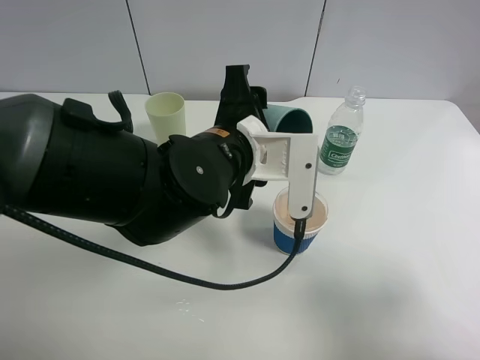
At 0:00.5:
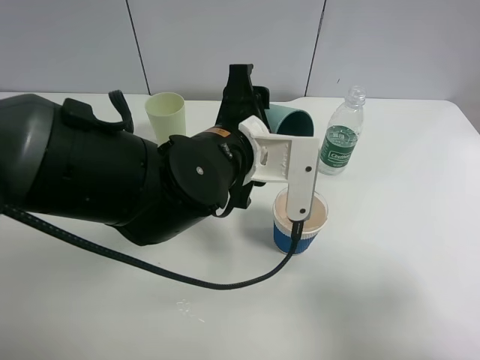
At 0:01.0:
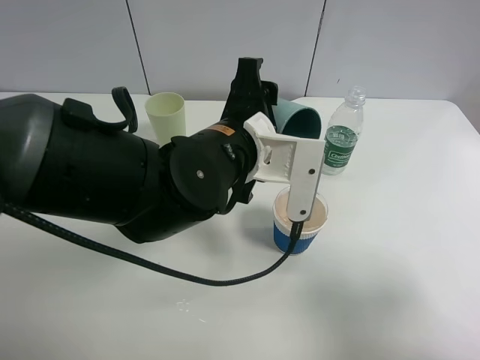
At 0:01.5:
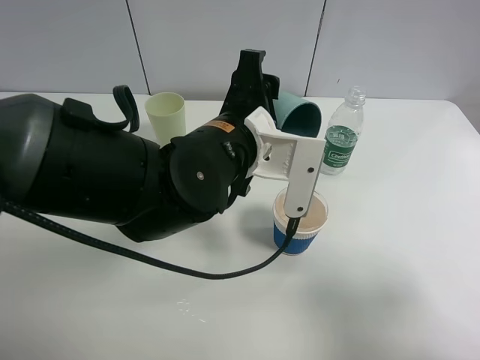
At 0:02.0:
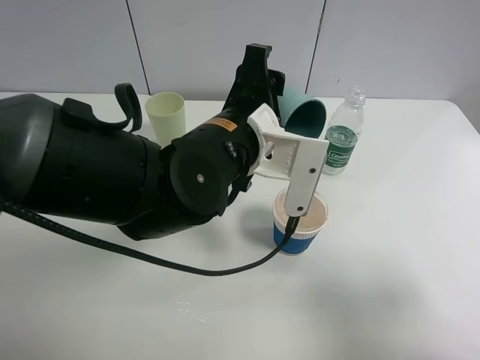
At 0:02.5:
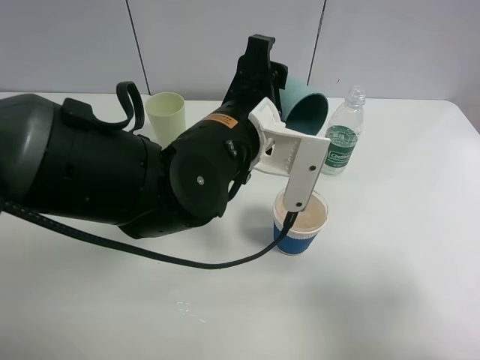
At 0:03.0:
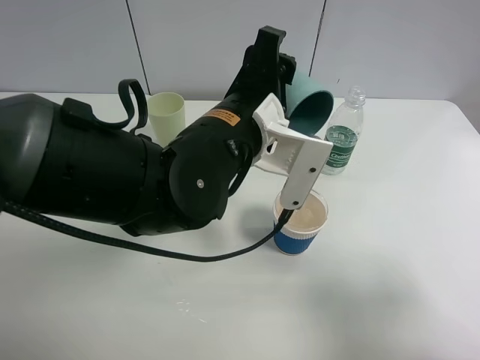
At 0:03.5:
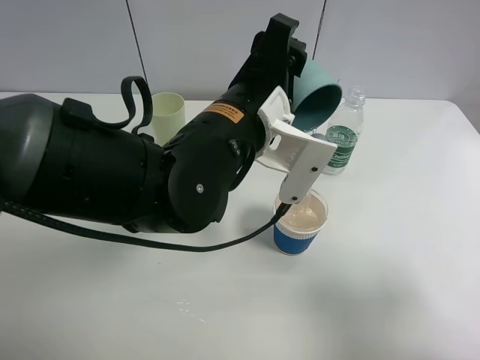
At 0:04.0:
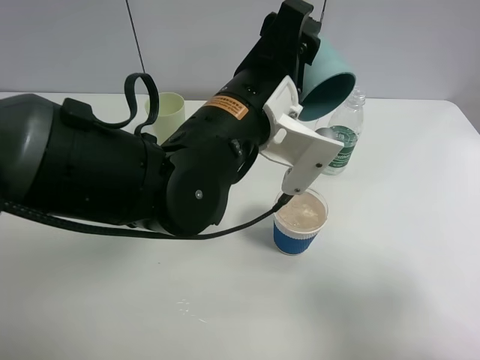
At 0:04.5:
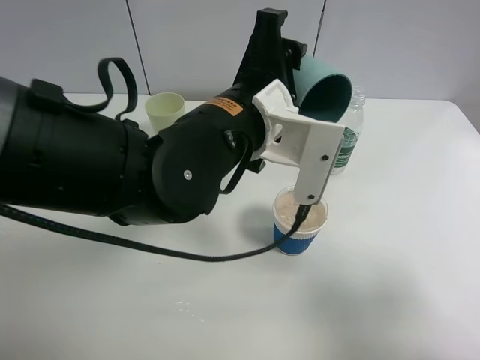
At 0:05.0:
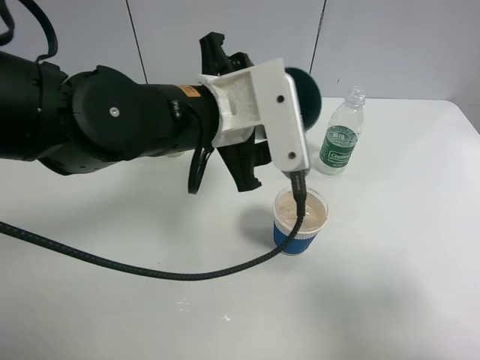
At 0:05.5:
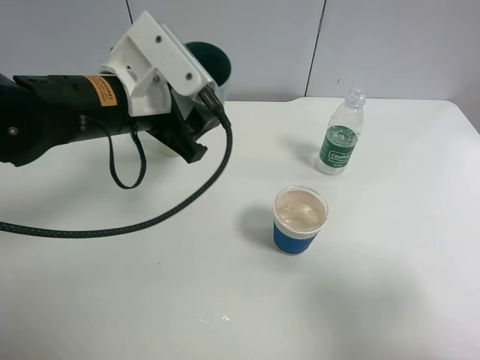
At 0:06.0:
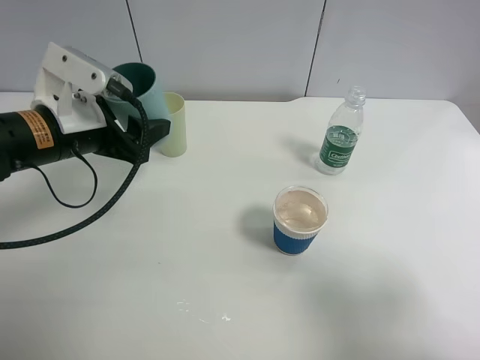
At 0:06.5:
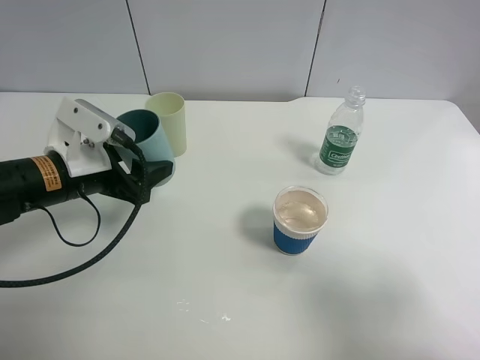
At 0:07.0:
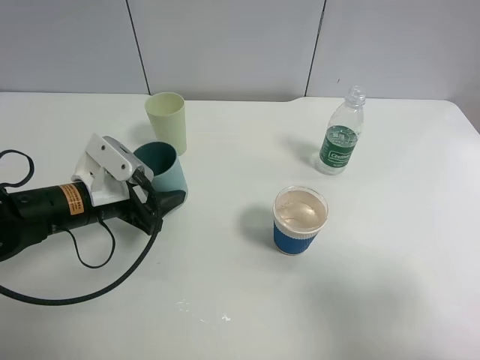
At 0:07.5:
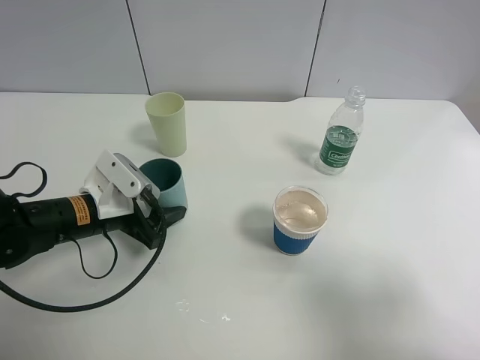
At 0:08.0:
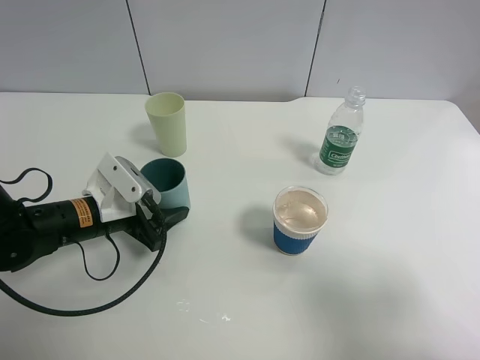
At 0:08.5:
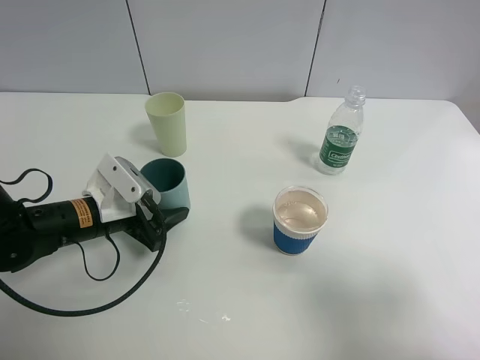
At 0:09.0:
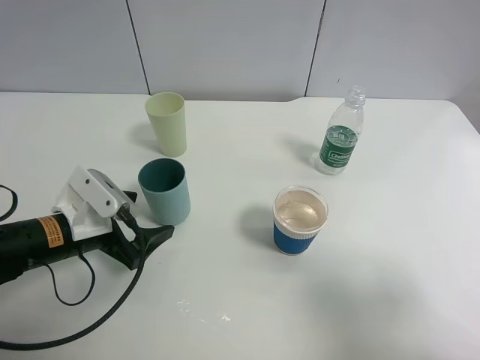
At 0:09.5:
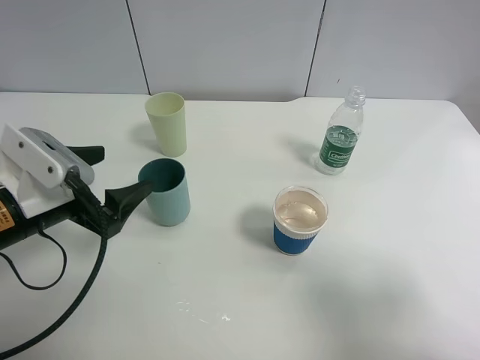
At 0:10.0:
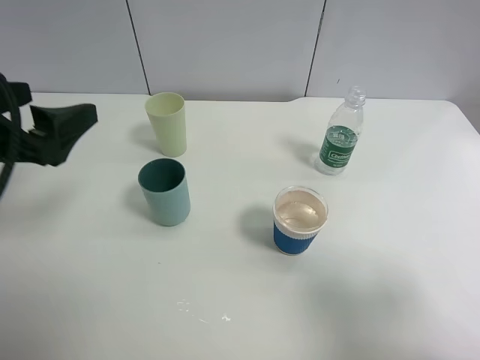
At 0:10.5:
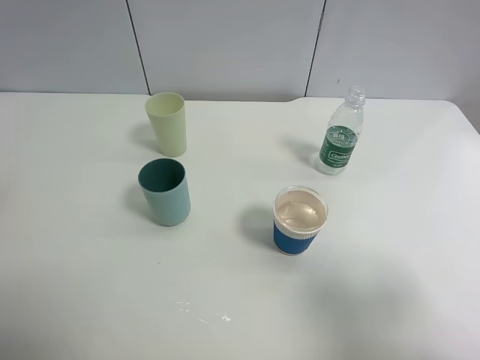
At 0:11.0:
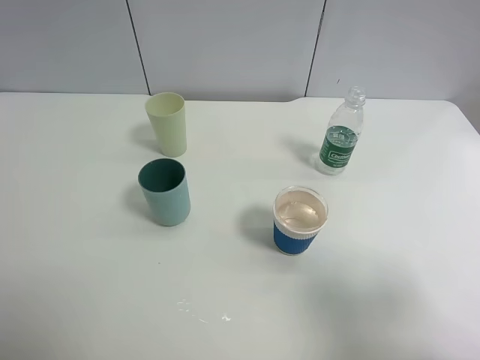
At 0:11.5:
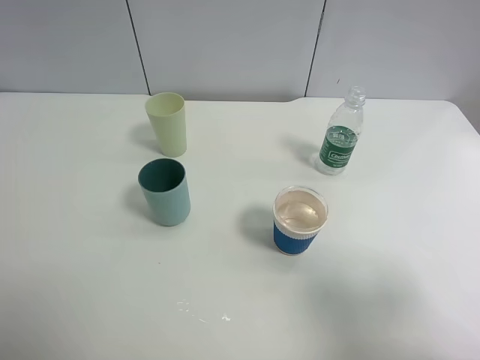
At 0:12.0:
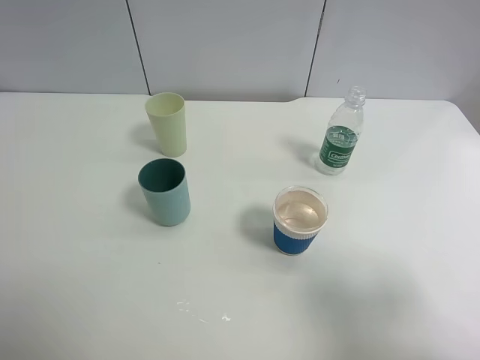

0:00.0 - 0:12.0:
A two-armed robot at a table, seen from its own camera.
Task of the whole recording: use a clamp to hold the bottle of the drink, pour the beverage into a random cup, then clamp the cup containing the drink and pour the drink into another random cup.
Step, 0:00.0 - 0:04.5: Pour water into the paper cup with left gripper.
Step, 0:05.0 - 0:08.5: Place the blue plastic cup on the table with left gripper.
0:00.0 - 0:02.0: The grippers make only small movements.
0:04.0 - 0:06.0: The left gripper travels to the left by about 20 cm.
0:06.0 - 0:08.0: The left gripper moves downward, approximately 10 cm.
0:08.0 - 0:10.0: The left gripper shifts some 20 cm upward, and opens.
0:10.0 - 0:12.0: The left gripper moves backward, upward and to the left, roughly 20 cm.

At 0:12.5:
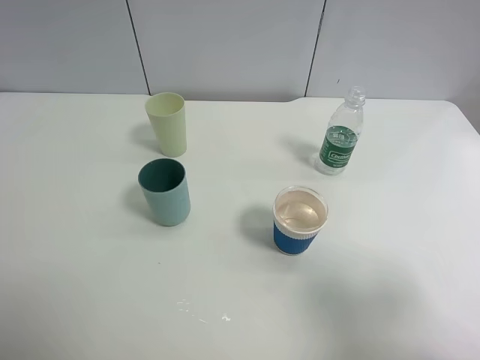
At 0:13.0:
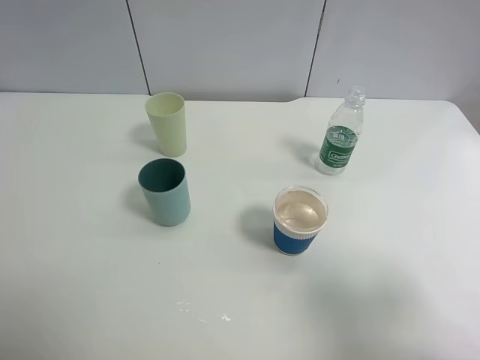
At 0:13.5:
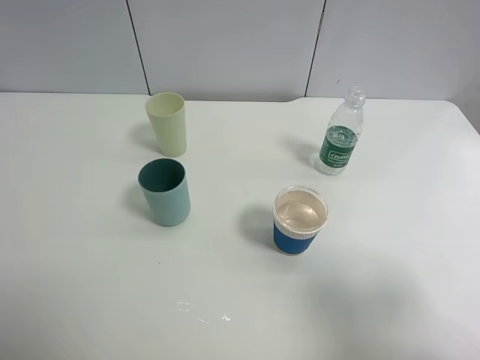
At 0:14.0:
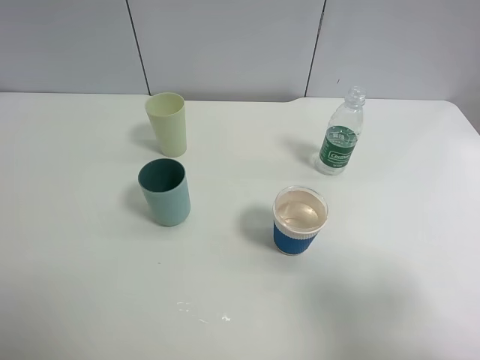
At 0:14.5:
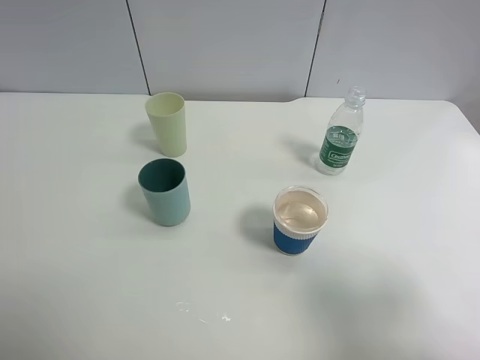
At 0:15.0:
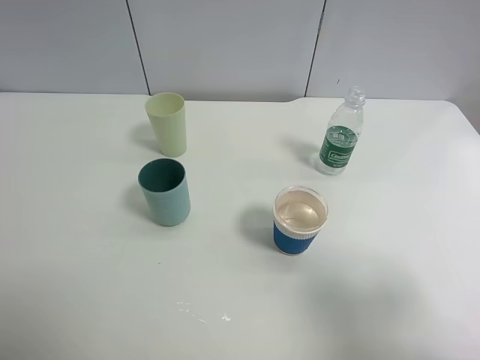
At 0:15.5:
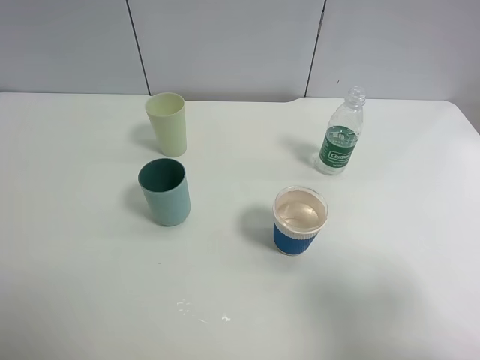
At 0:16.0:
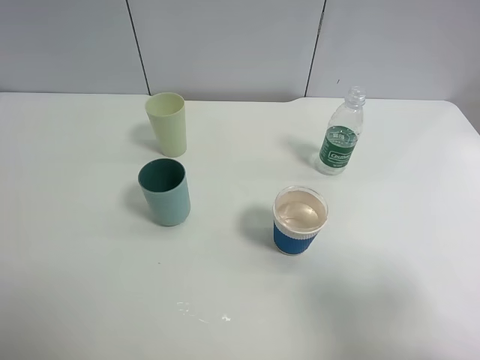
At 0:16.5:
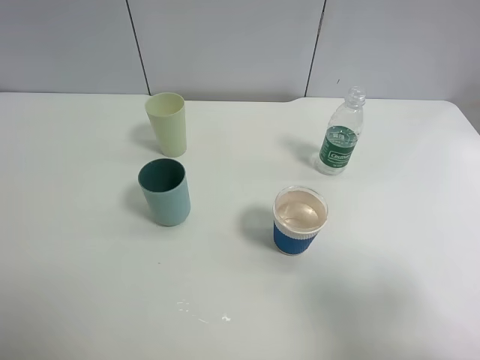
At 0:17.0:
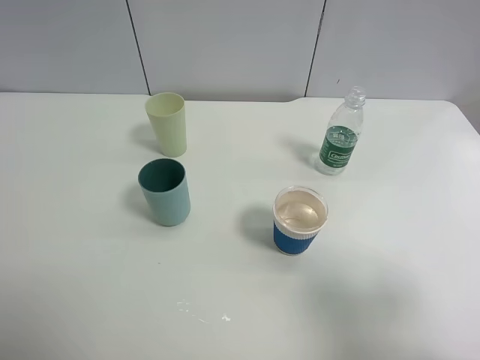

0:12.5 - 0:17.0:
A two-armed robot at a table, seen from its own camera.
Task of the whole recording: use a clamp to hold the bottle of the drink, pour the beverage into a random cup, then clamp the cup containing the drink and pour the drink into another random cup.
0:14.5 - 0:17.0: The two grippers keep their place.
